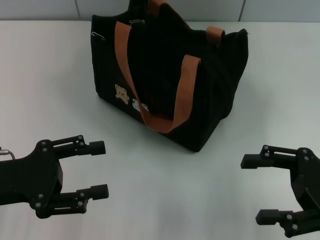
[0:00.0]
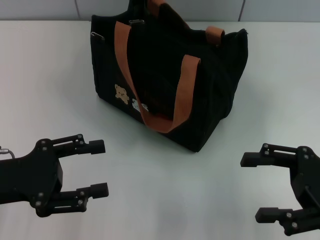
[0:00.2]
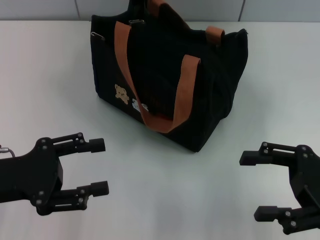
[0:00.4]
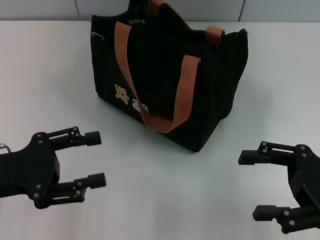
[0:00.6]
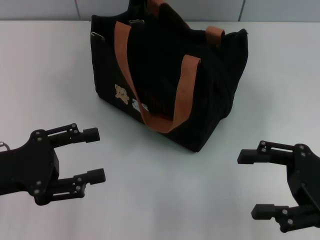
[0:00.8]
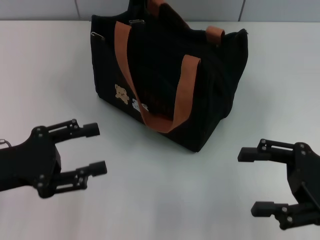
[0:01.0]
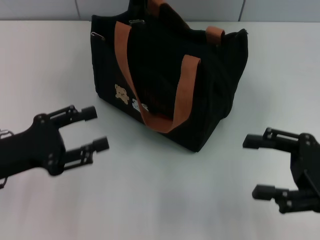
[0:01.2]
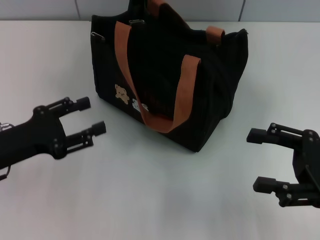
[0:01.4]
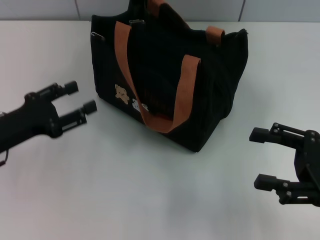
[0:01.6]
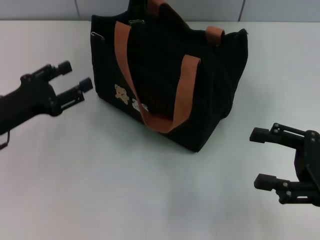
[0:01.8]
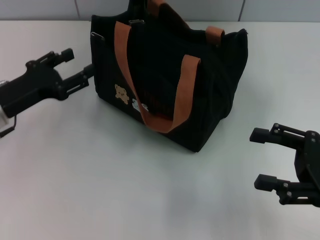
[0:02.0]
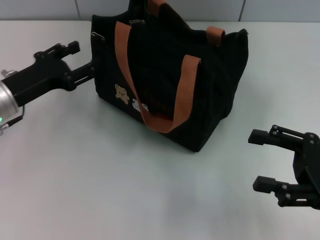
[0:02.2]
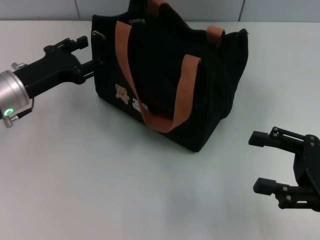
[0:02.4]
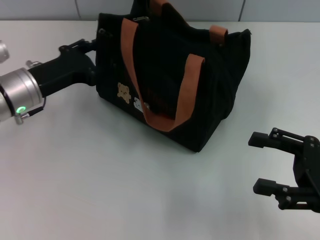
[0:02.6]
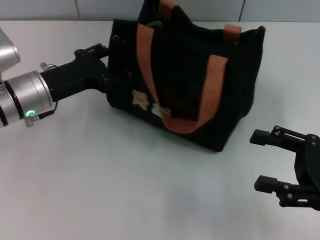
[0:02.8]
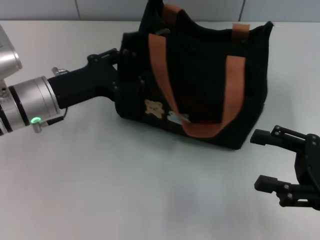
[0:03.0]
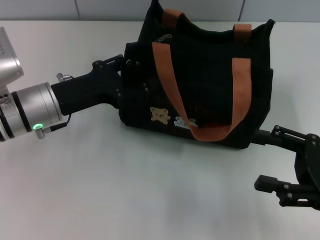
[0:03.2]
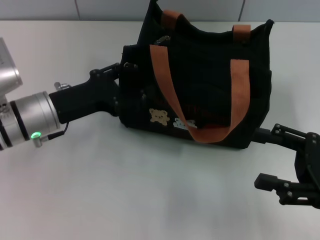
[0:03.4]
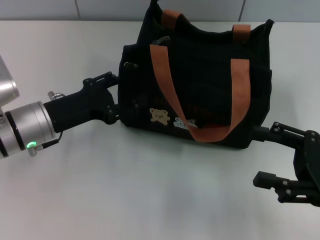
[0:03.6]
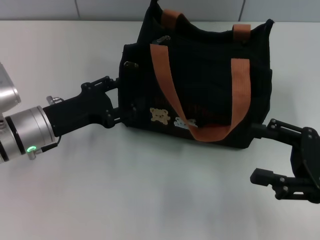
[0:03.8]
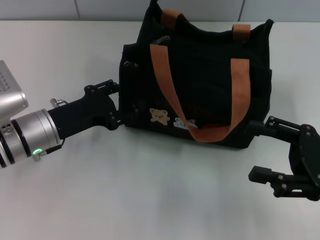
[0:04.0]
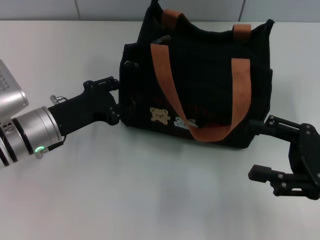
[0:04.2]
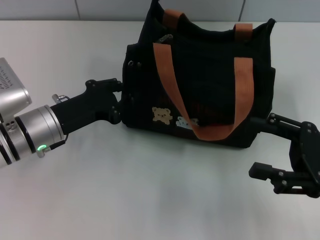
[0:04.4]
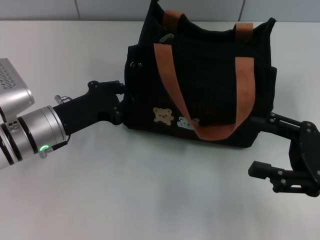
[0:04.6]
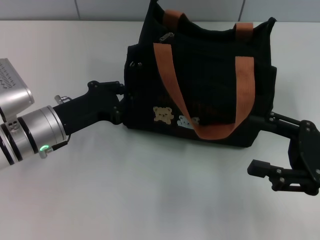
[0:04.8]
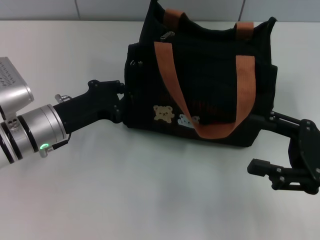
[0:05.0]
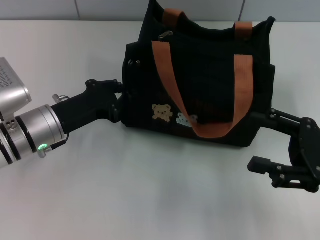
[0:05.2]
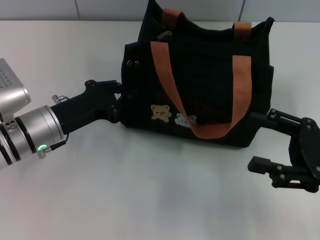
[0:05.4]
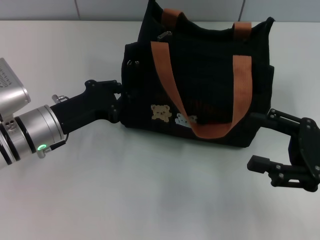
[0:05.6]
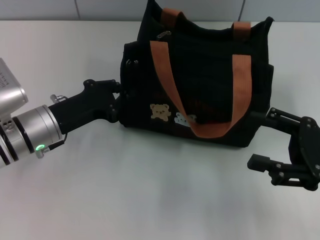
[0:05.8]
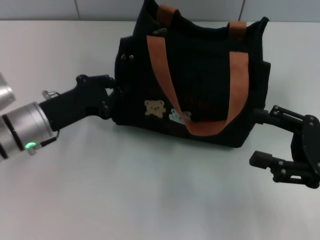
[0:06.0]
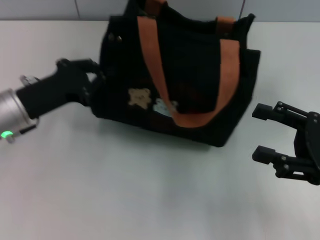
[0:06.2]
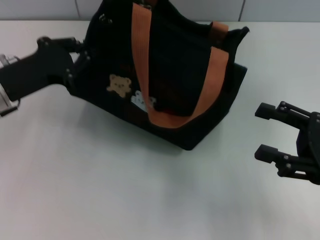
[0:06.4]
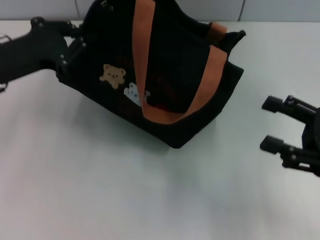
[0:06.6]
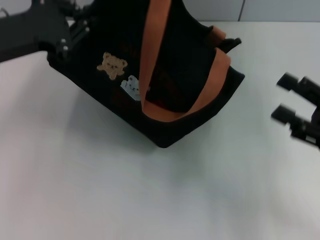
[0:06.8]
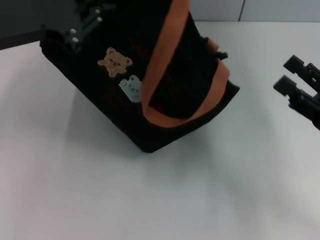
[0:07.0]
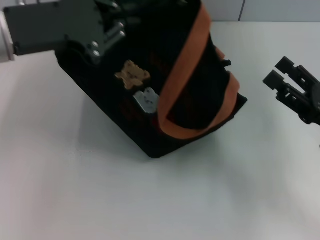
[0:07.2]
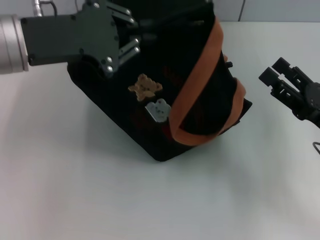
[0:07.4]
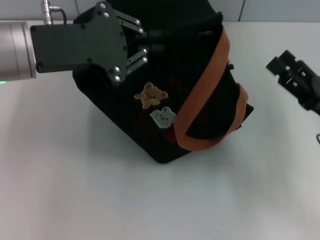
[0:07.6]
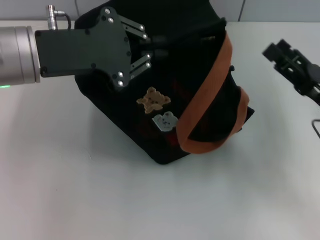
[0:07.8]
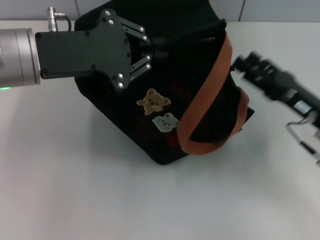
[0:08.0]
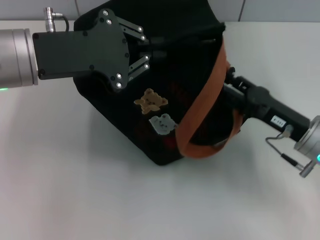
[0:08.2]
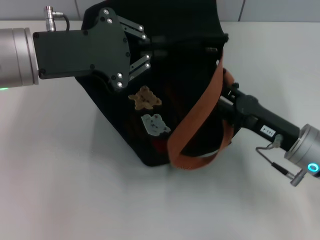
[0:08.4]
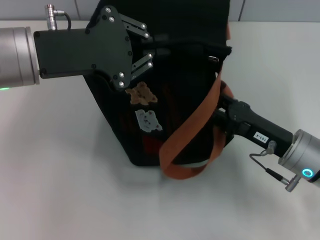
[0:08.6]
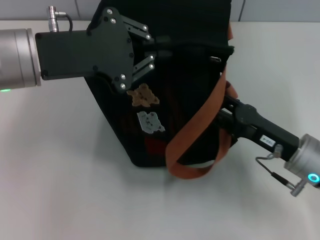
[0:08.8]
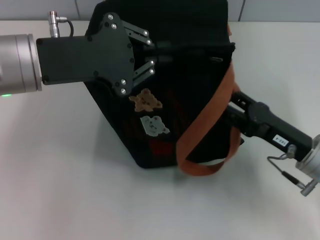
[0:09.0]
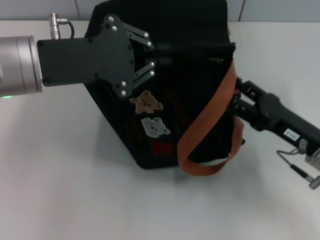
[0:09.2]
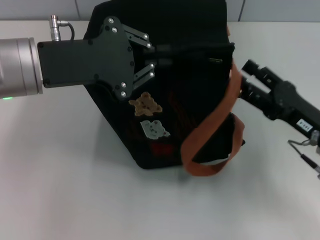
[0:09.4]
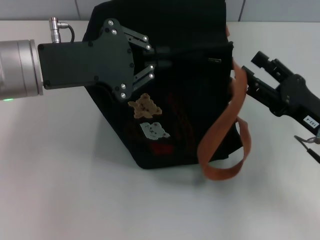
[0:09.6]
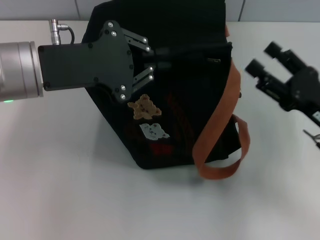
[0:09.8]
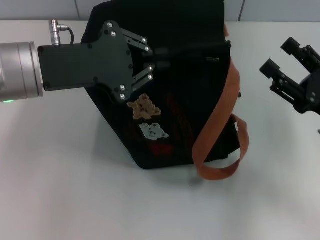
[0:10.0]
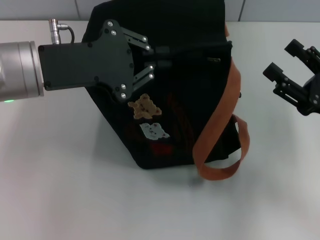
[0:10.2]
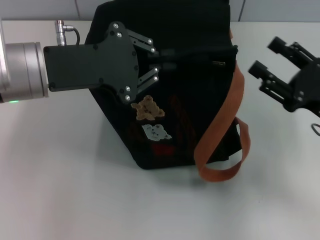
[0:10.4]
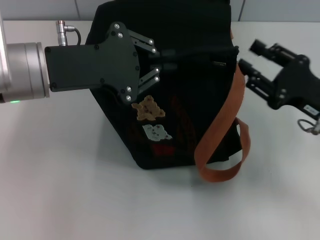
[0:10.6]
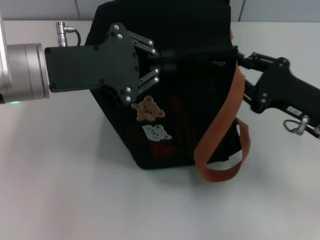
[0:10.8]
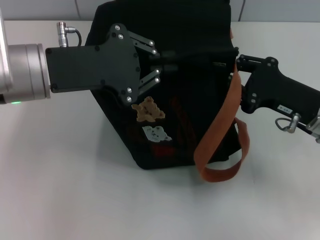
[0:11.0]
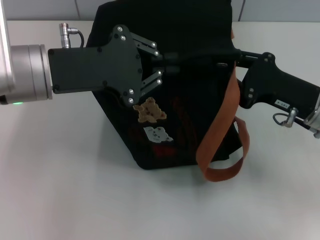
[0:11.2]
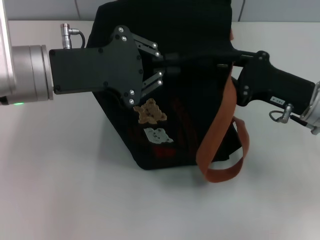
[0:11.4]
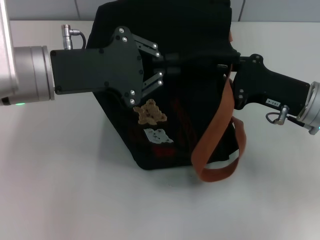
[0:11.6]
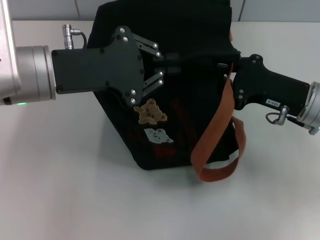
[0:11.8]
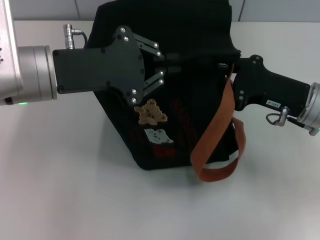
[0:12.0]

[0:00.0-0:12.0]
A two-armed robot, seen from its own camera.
0:00.0 to 0:01.6: The left gripper changes place by approximately 5 cm.
0:01.6 to 0:03.0: The left gripper shifts roughly 10 cm to the right and forward.
0:04.4 to 0:06.0: The left gripper closes its fingers.
0:06.0 to 0:07.6: The left gripper shifts approximately 15 cm upward.
0:07.6 to 0:09.0: The right gripper heads to the left, covering some 5 cm.
0:09.0 to 0:10.4: The right gripper ends up about 5 cm from where it was.
0:10.4 to 0:12.0: The right gripper changes place by about 5 cm, and closes up.

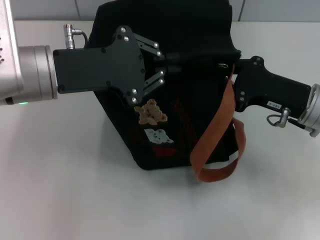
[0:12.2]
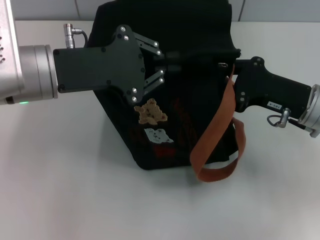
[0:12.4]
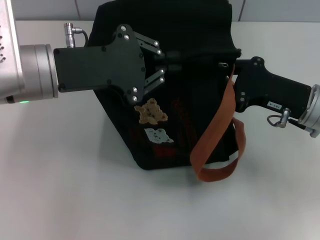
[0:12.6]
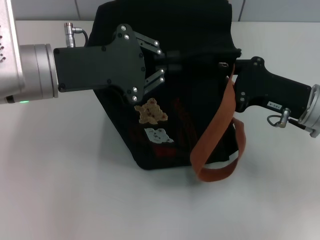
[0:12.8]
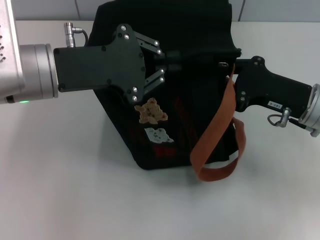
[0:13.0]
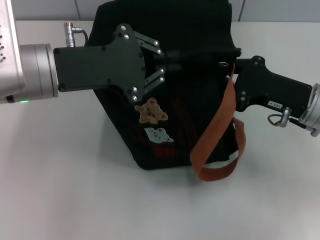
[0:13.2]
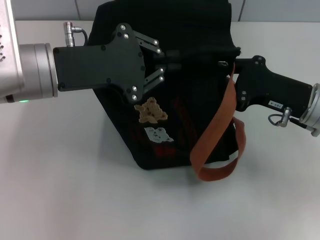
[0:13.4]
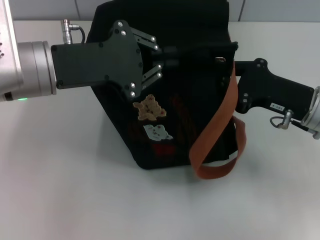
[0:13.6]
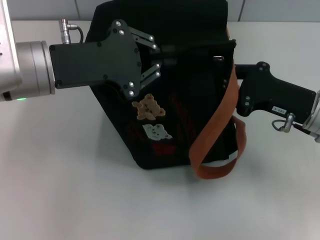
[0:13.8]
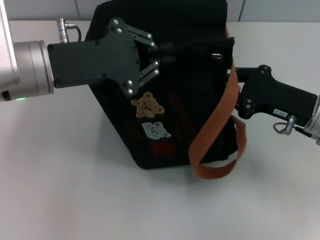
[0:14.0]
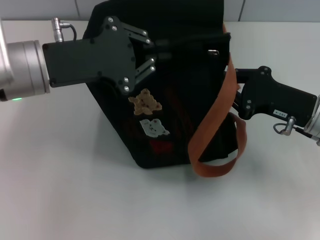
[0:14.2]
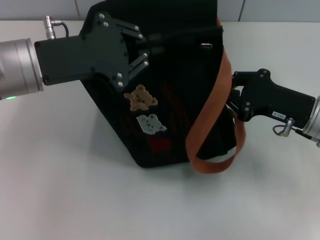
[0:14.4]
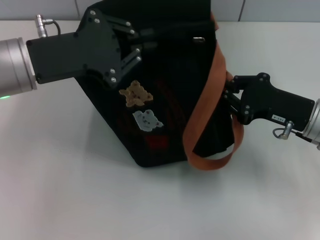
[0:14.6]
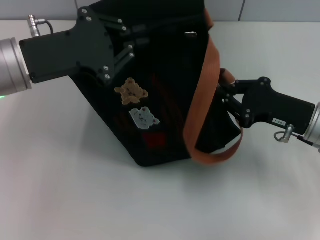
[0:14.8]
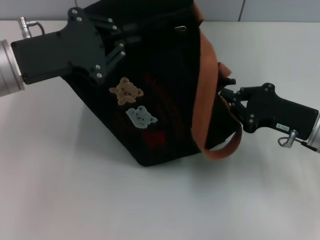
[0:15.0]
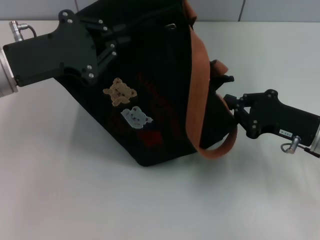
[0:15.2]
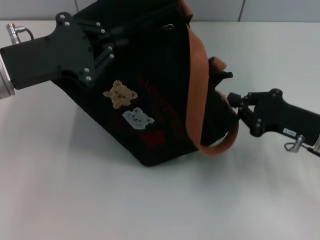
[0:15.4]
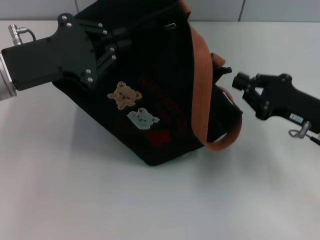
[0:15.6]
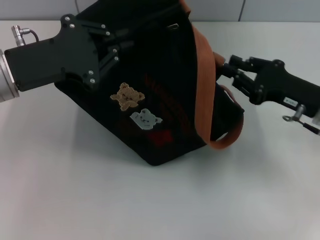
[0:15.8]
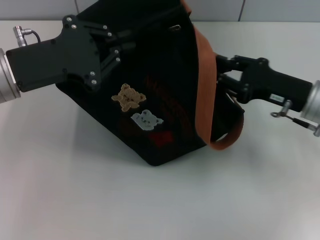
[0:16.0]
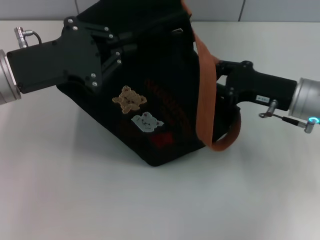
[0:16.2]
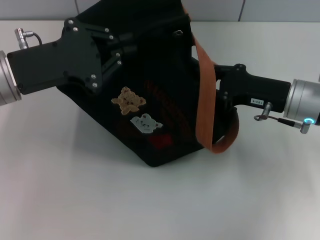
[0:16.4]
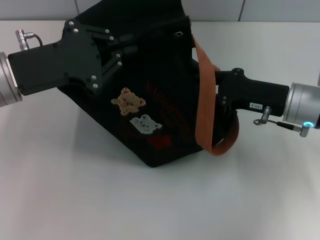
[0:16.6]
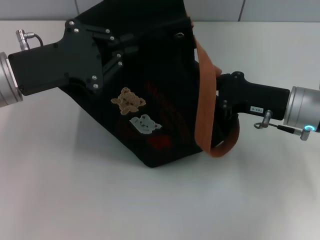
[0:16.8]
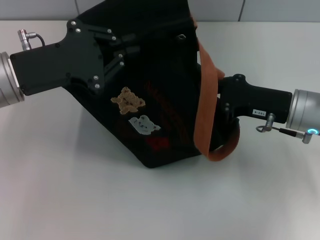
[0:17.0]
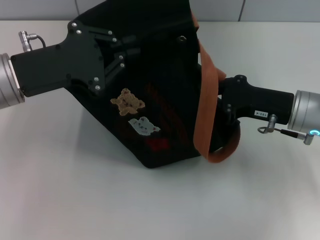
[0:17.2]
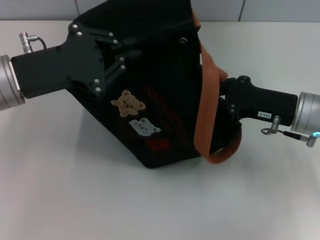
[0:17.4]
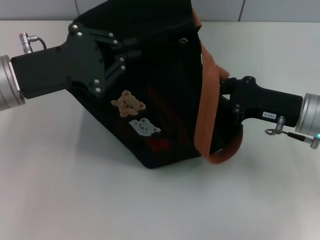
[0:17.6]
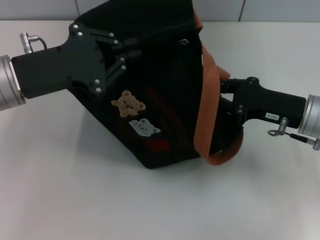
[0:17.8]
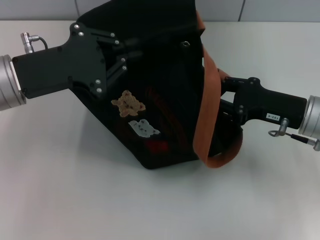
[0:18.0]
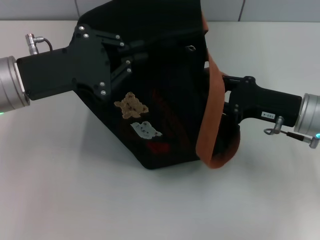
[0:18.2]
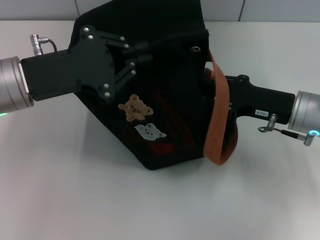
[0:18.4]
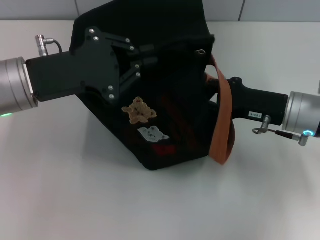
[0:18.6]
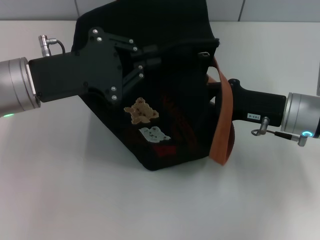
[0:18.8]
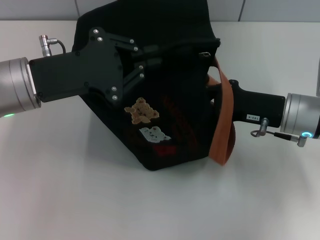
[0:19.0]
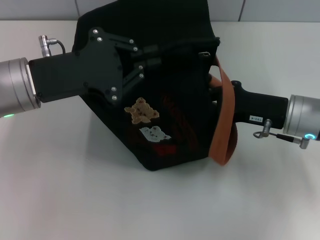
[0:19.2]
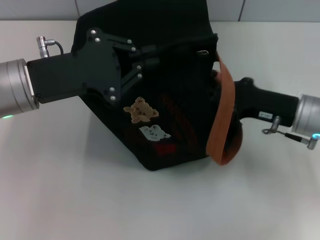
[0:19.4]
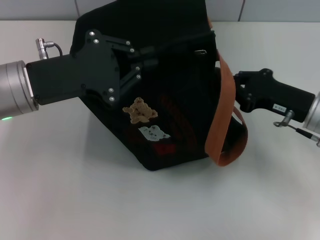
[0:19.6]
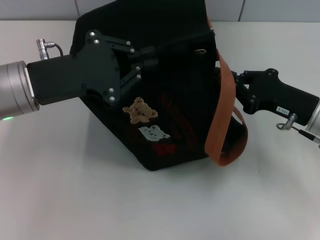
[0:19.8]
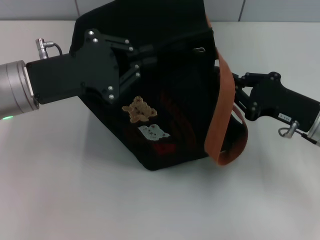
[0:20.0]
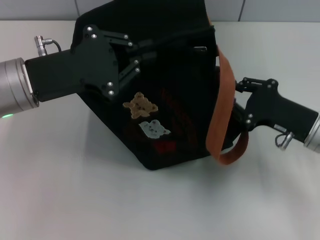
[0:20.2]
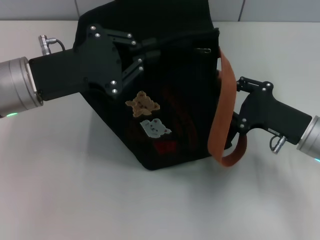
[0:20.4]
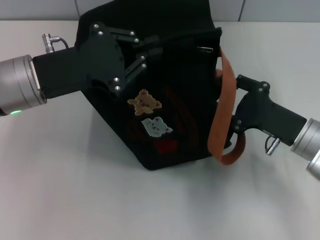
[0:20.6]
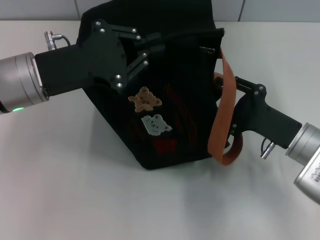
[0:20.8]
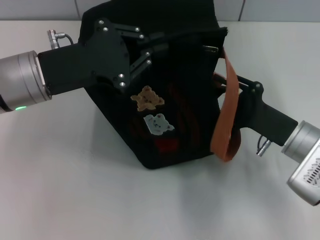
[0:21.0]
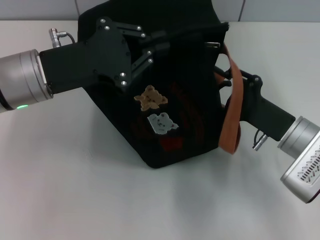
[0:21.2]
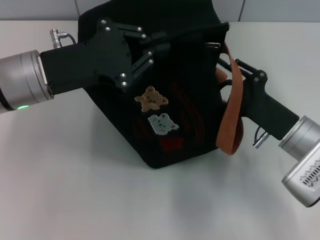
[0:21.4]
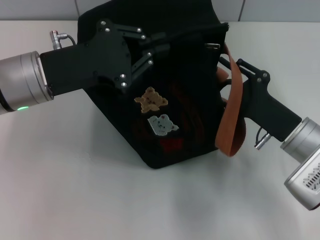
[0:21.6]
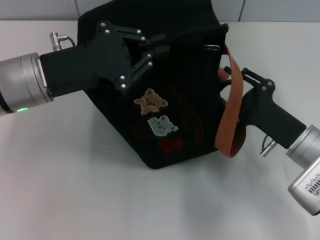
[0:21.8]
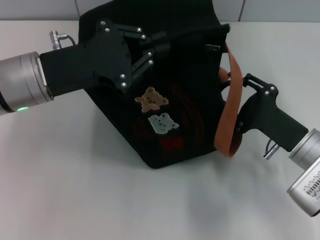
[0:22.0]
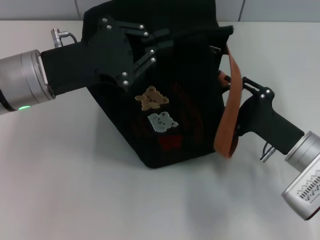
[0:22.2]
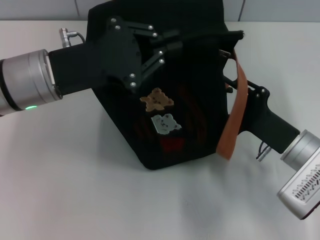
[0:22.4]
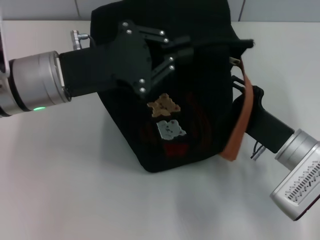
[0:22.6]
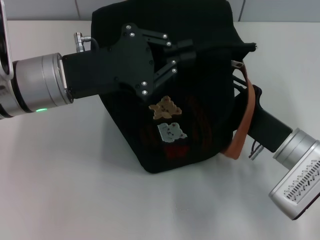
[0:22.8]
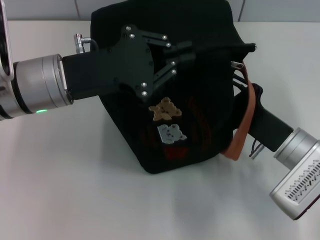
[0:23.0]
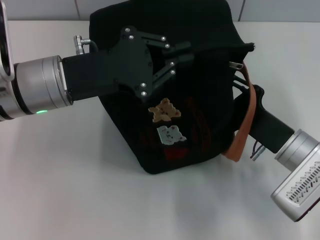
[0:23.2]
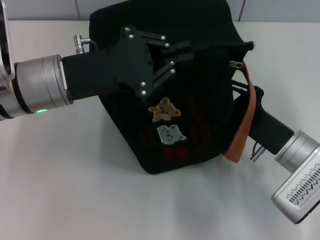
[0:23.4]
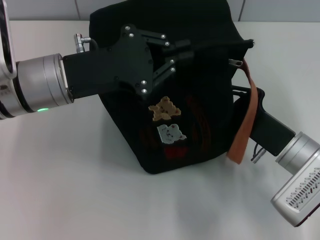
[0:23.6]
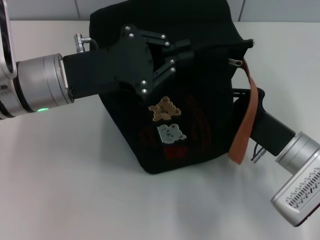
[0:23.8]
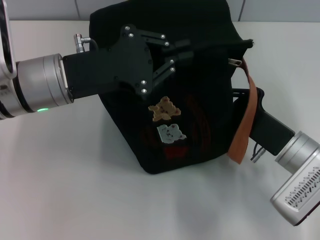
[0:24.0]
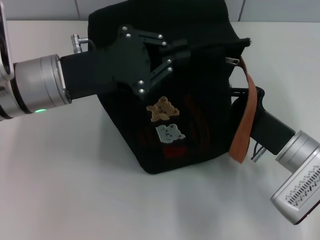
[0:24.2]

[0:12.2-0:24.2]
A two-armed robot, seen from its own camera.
0:12.2 to 0:13.8: Both grippers stay about where they are.
0:13.8 to 0:15.2: The left gripper shifts by roughly 5 cm.
0:15.2 to 0:16.6: The right gripper moves some 5 cm, and opens.
0:16.6 to 0:18.2: The right gripper closes, then reopens.
0:18.2 to 0:19.8: The right gripper closes.
0:19.8 to 0:21.2: The right gripper changes place by approximately 5 cm, and opens up.
0:21.2 to 0:22.6: The grippers move only a little.
0:22.6 to 0:24.2: The right gripper closes its fingers.
